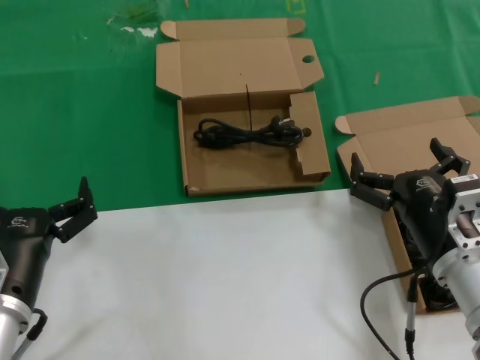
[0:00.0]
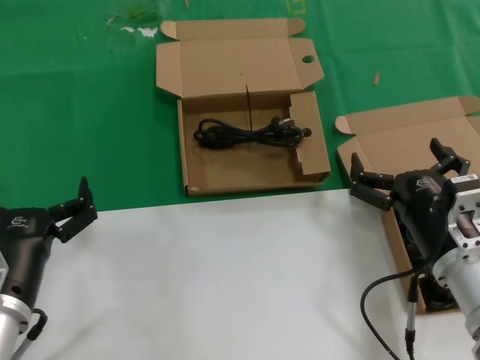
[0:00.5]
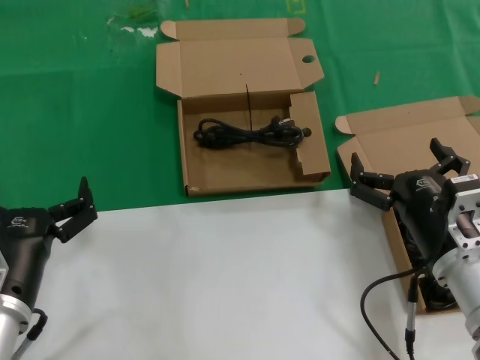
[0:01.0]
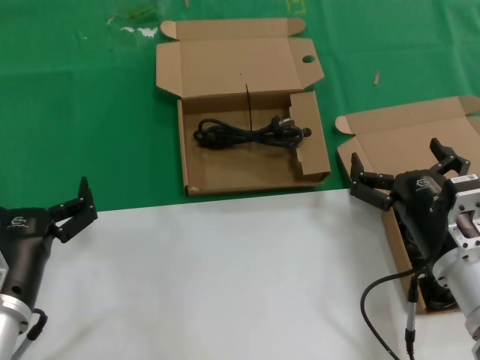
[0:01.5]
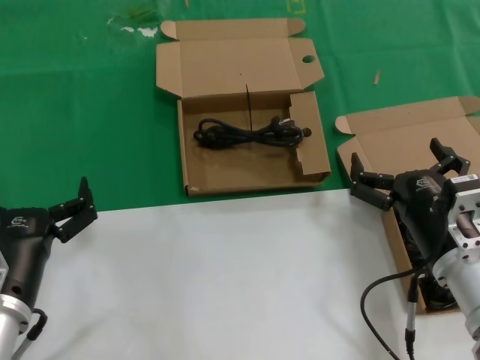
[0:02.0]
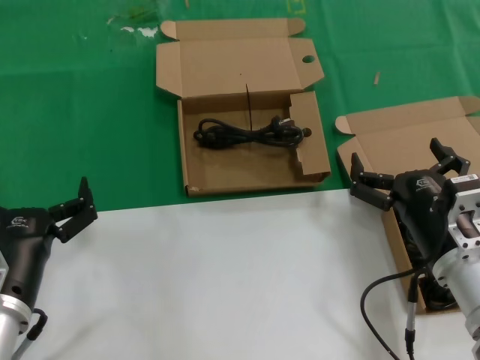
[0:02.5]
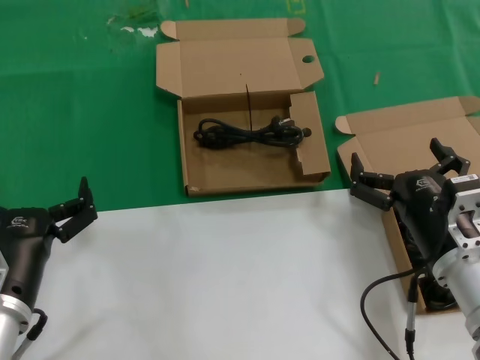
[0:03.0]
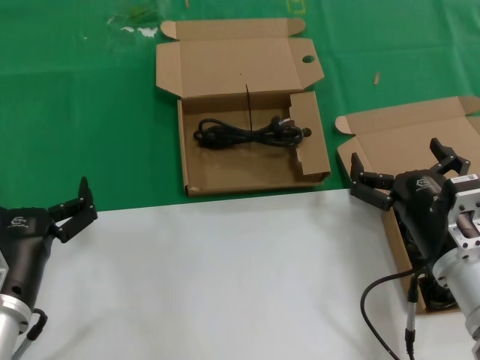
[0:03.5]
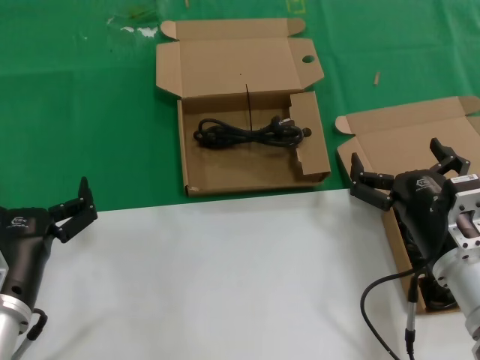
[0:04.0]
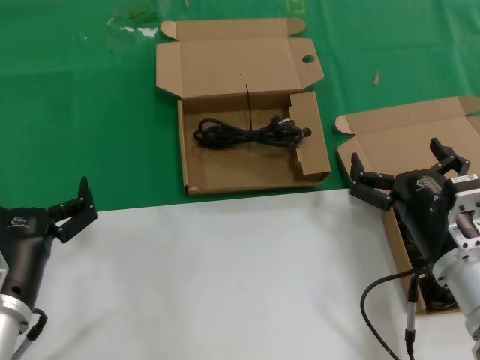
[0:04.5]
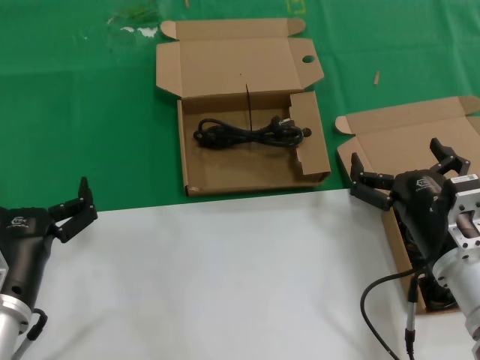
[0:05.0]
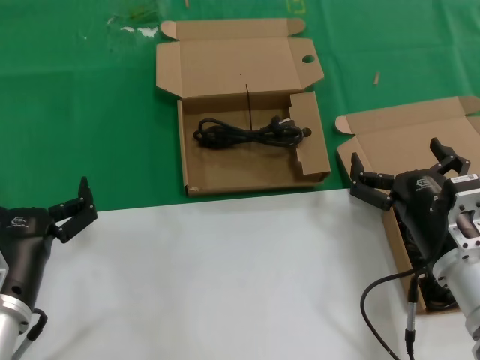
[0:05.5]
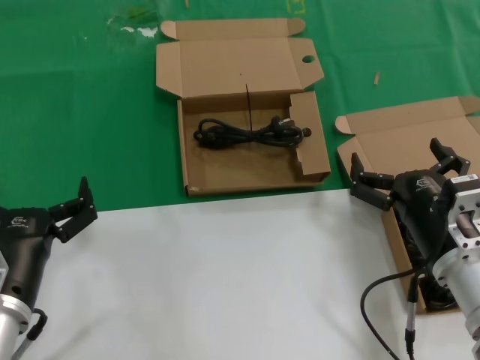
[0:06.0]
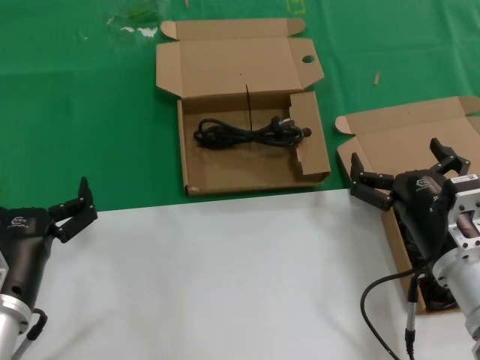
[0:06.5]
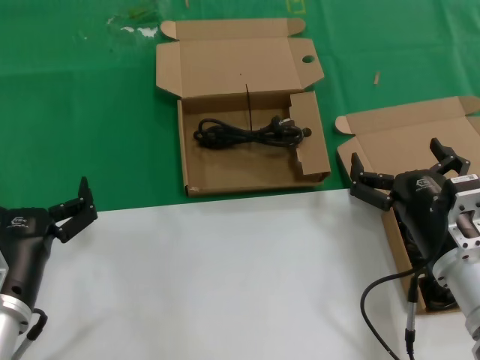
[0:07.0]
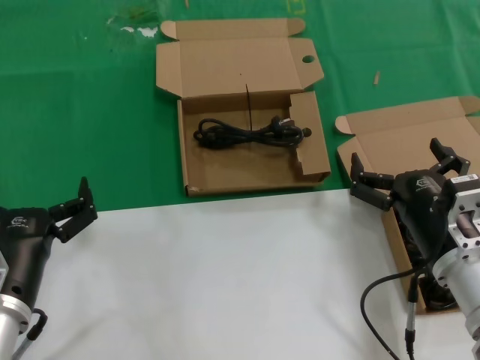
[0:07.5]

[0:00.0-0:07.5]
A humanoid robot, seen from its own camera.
Task of the whole recording: take the parts from the box containing them and put them into an empty box.
0:00.0 to 0:07.5: The two hands keep their place.
